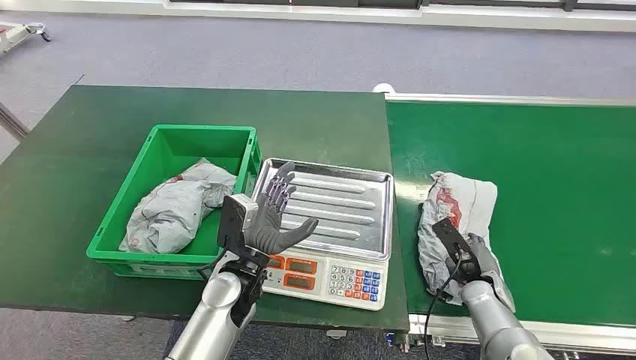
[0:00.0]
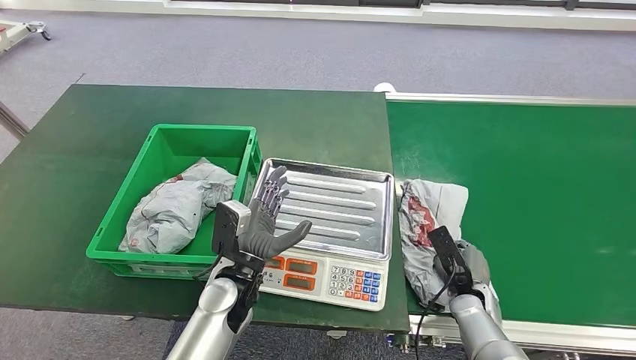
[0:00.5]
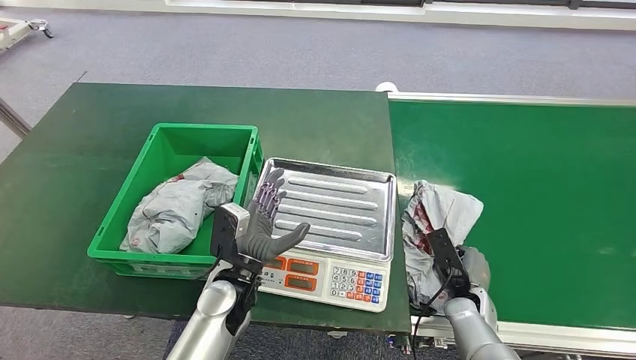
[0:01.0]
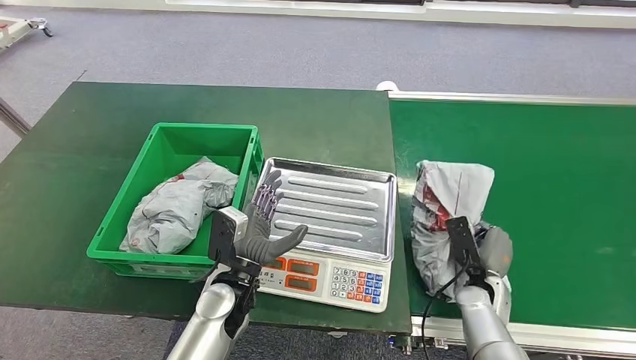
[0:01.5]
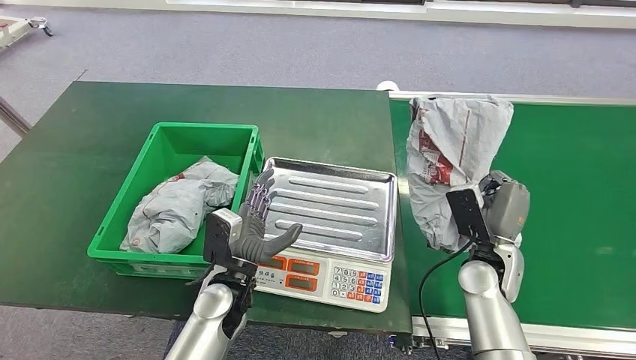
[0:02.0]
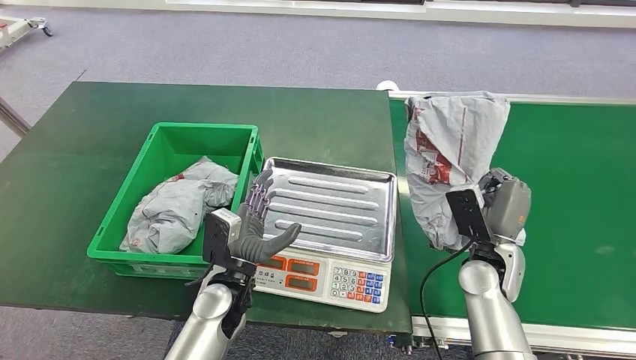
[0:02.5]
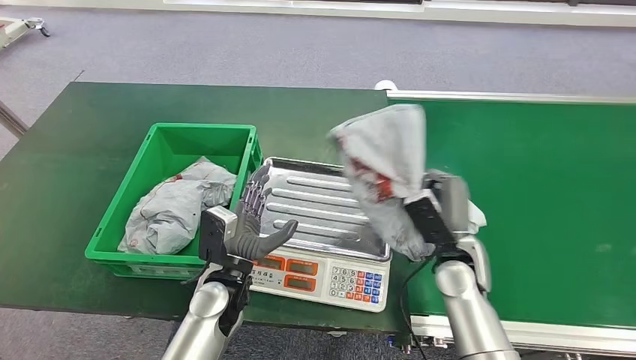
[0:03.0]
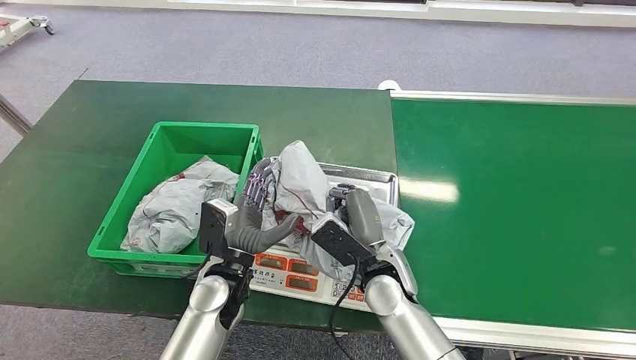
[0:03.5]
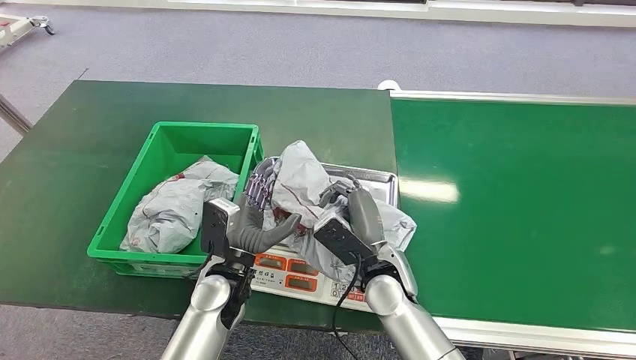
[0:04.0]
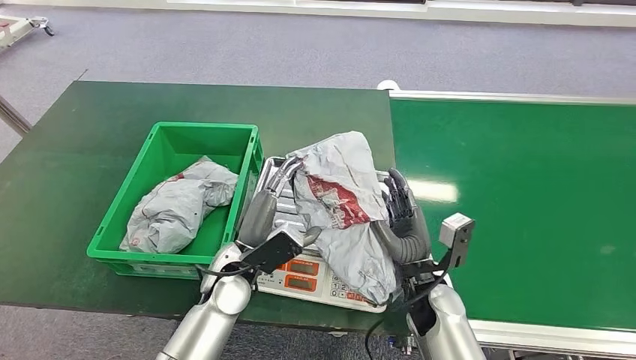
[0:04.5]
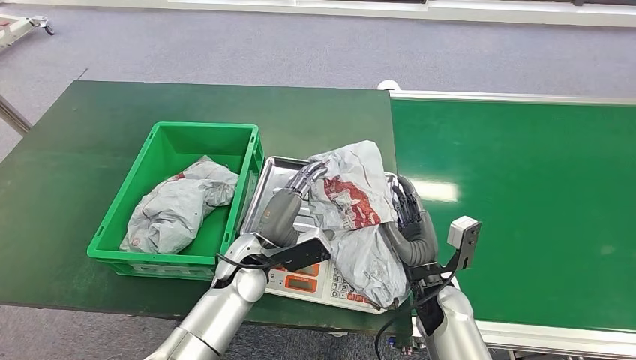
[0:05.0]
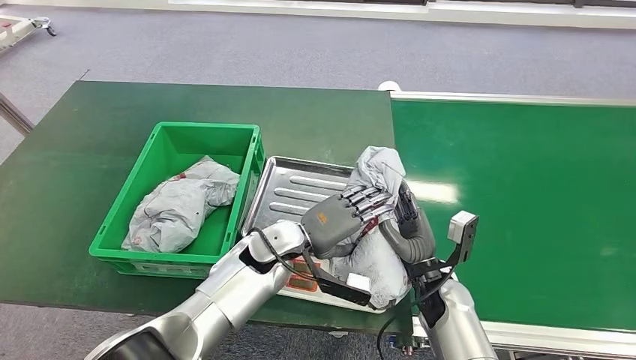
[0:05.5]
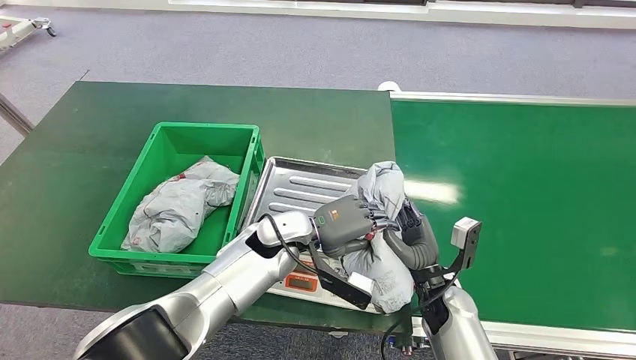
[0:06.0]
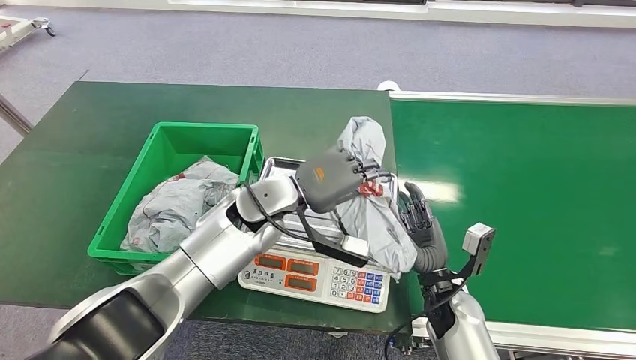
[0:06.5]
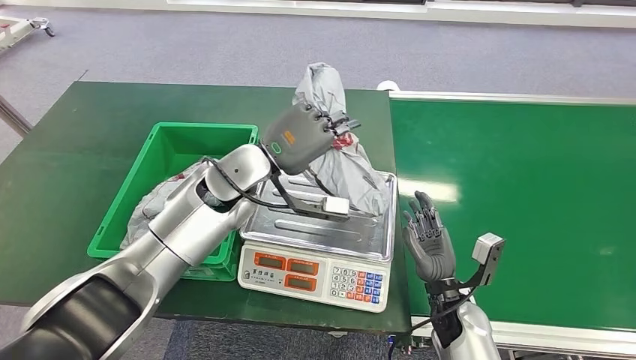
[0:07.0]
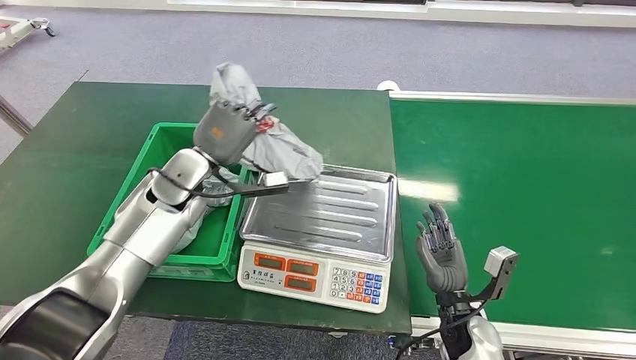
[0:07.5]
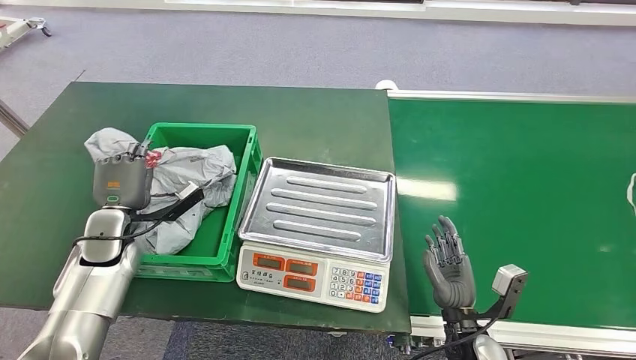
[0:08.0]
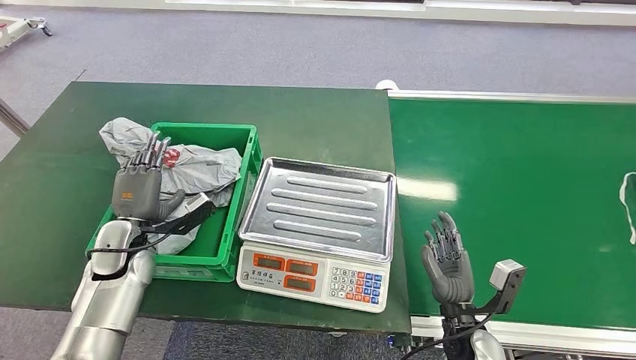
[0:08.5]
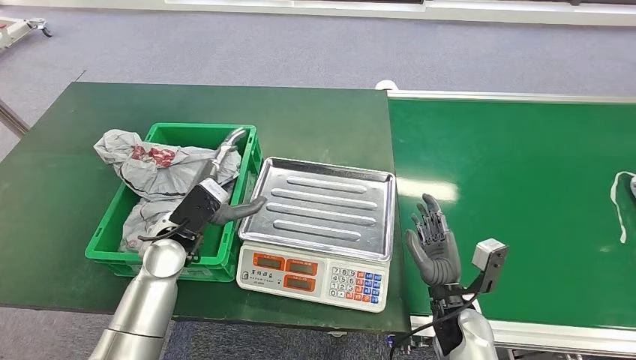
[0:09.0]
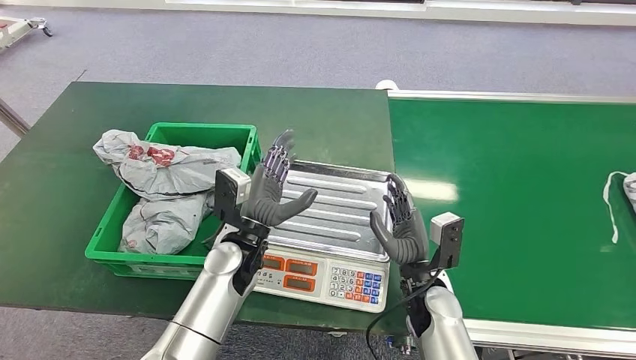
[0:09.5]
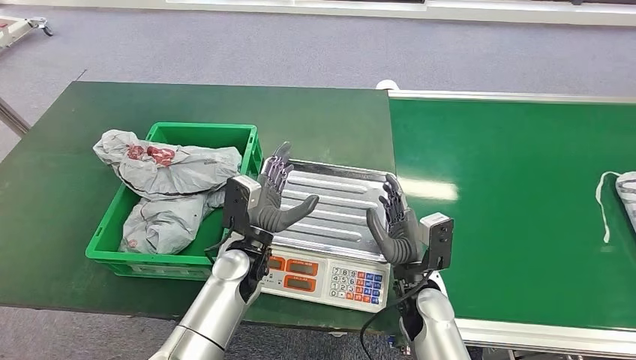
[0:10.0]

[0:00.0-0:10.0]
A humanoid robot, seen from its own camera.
Step, 0:00.0 to 0:01.5: Pick up the package from the conveyor belt.
Step, 0:02.0 to 0:03.0: Place the package onto the inbound machine.
Step, 0:03.5 to 0:07.5: Pick up the package from the inbound machine.
Step, 0:08.0 to 0:10.0: Place the package into the parcel locker.
0:04.0 to 0:06.0: The left hand goes about 10 cm forward and to the right. The right hand goes roughly 15 cm to the right and downward.
0:08.0 to 0:10.0: The left hand travels to the right by some 25 cm. The right hand is displaced to the left, upward and forward by roughly 15 cm.

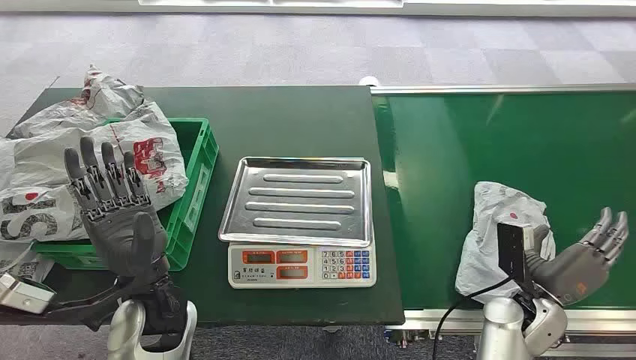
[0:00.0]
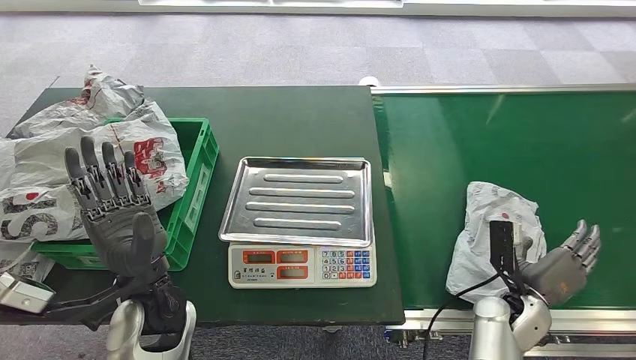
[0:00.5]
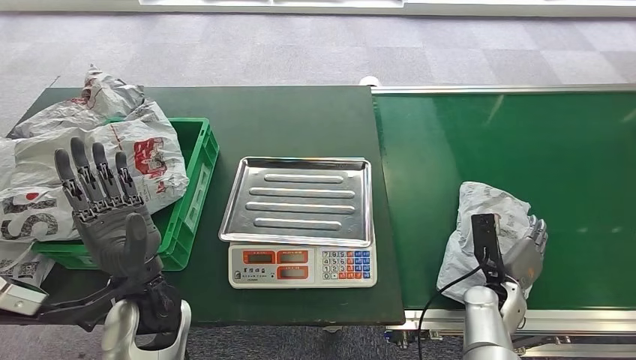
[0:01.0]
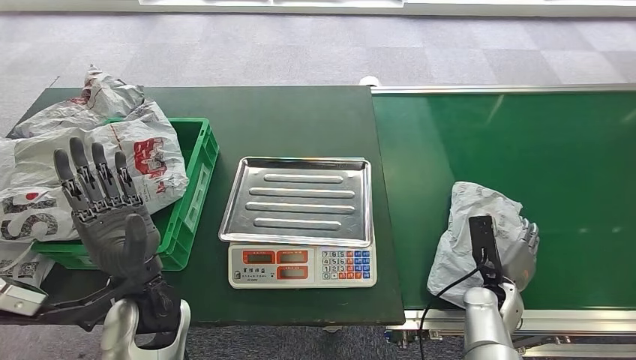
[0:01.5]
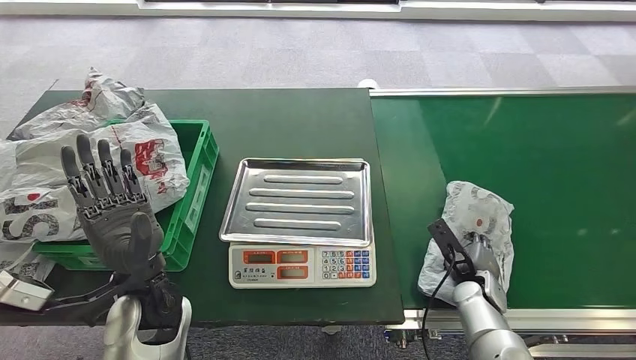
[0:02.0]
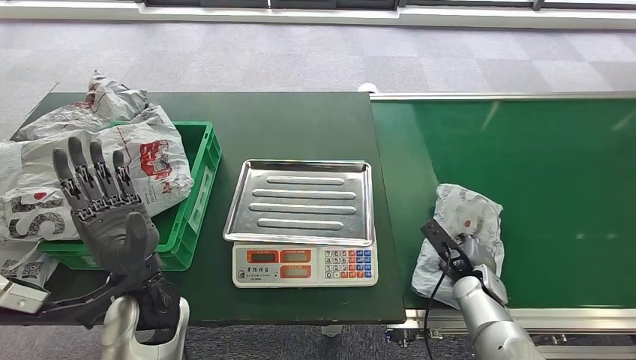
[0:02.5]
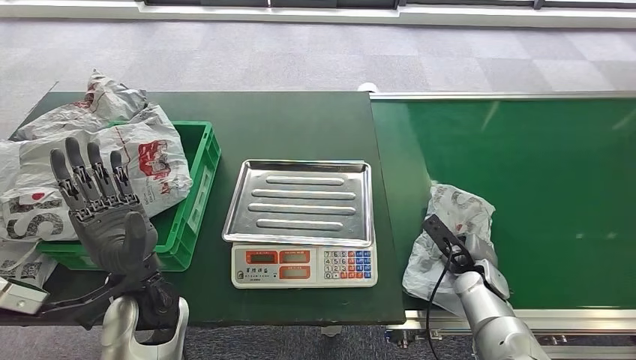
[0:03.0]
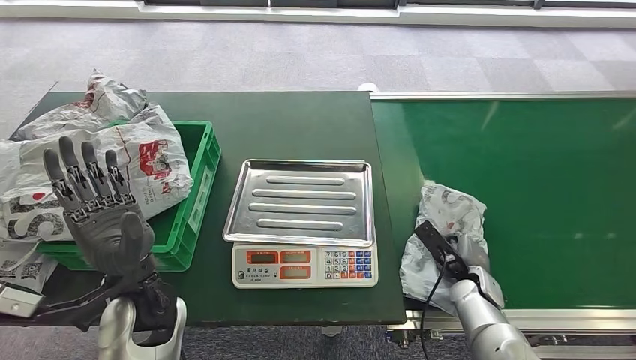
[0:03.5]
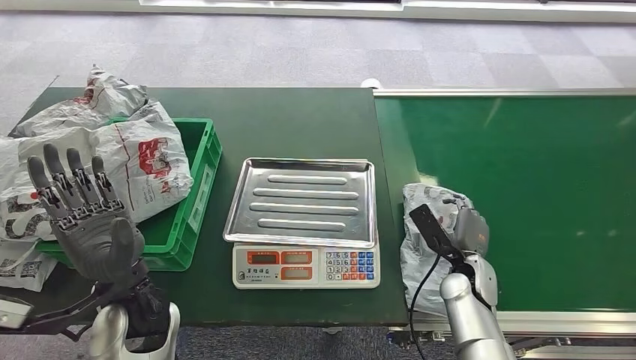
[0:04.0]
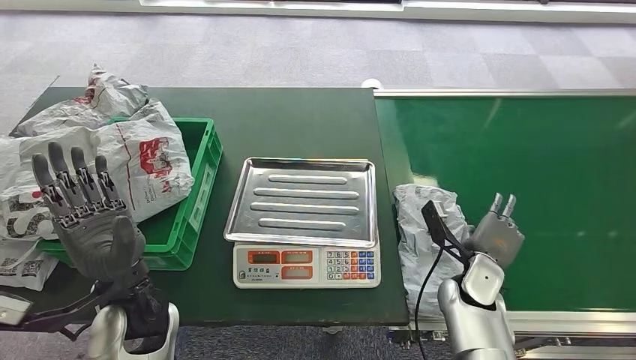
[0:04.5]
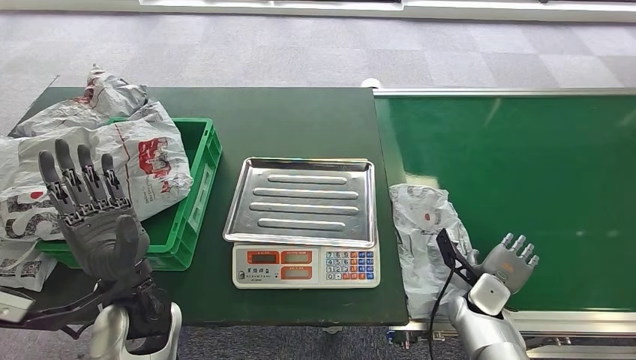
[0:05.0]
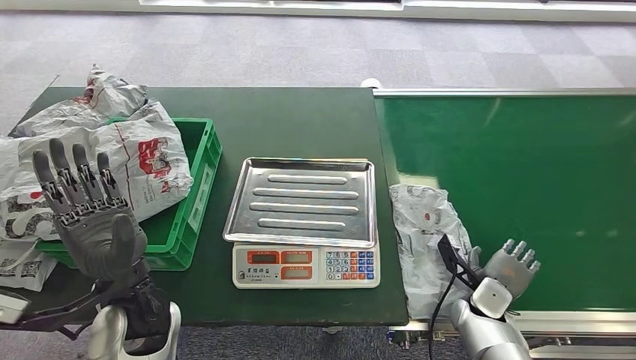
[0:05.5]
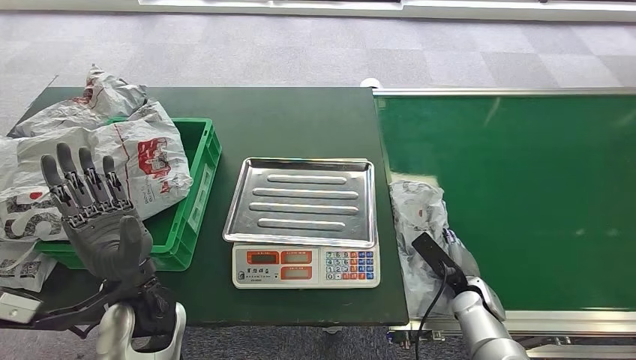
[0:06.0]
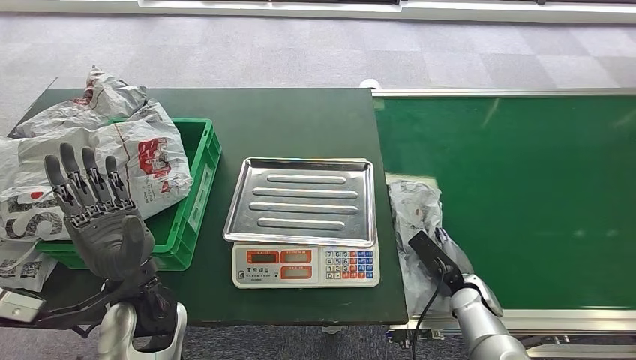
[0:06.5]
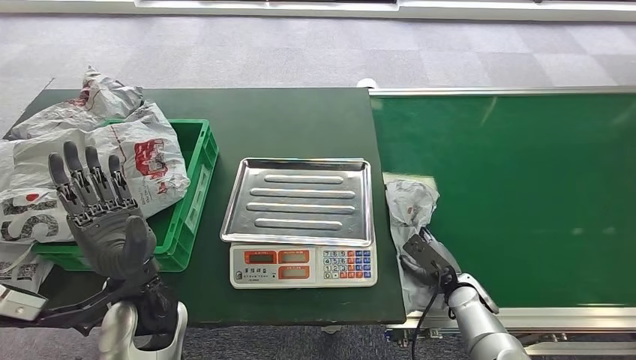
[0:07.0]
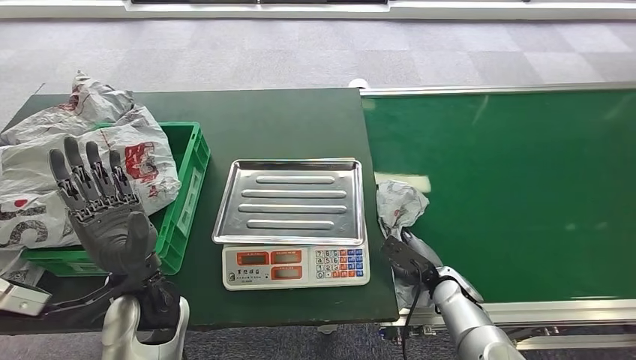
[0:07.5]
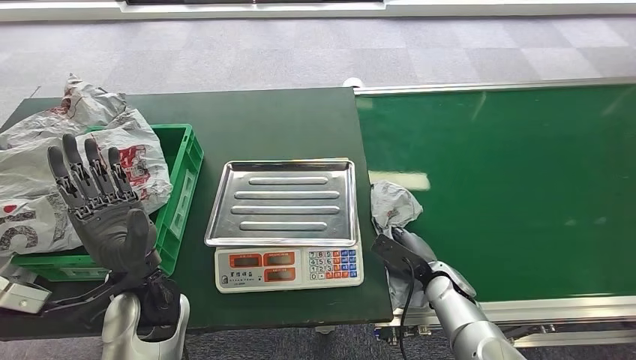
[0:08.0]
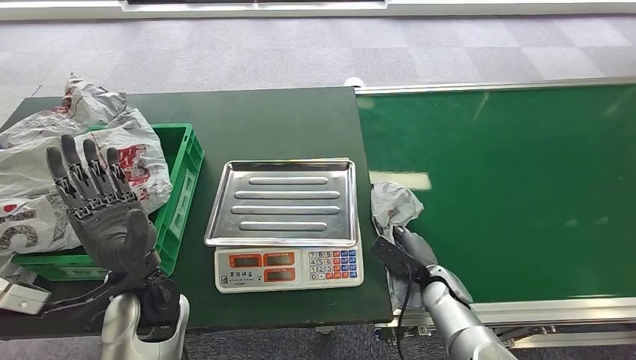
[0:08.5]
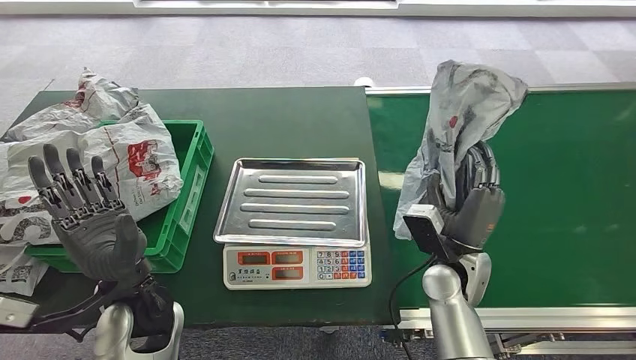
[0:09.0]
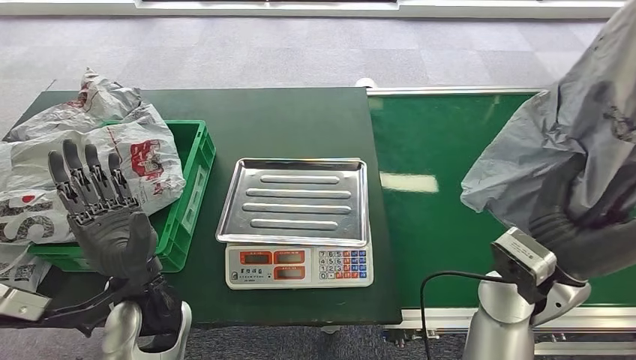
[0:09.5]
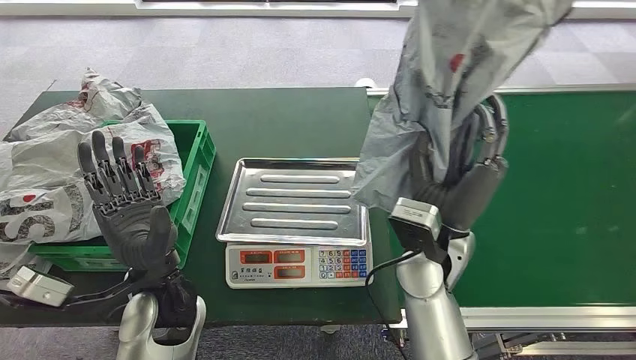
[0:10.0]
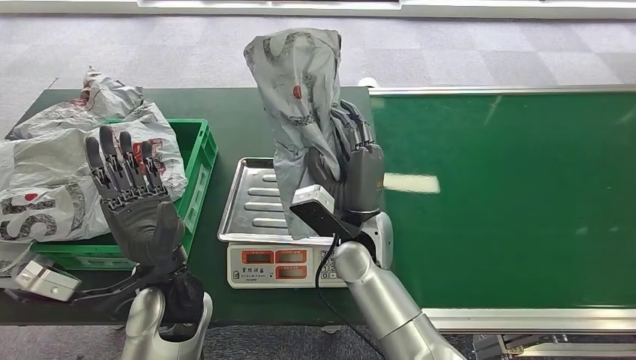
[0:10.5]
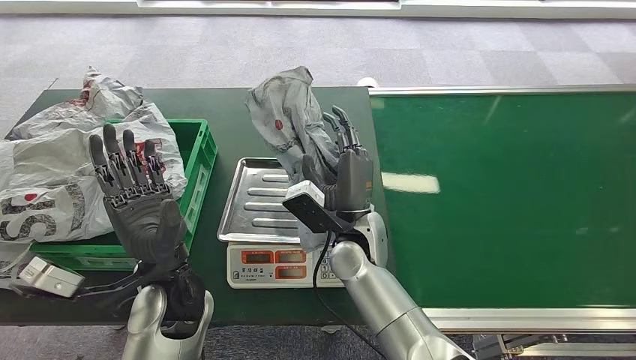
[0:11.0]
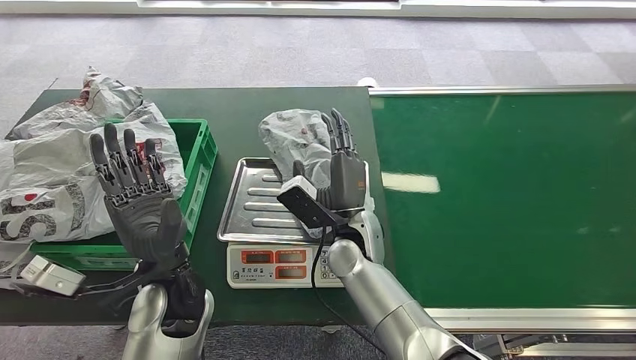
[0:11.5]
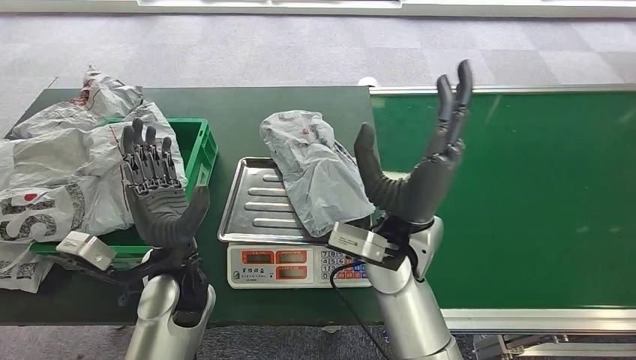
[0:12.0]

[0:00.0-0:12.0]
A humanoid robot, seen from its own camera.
Step, 0:00.0 to 0:09.0: Pick up the package from the conveyor belt.
0:04.0 to 0:06.0: The right hand moves downward, roughly 5 cm.
